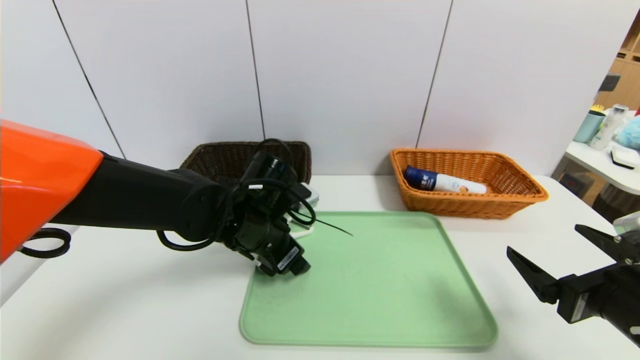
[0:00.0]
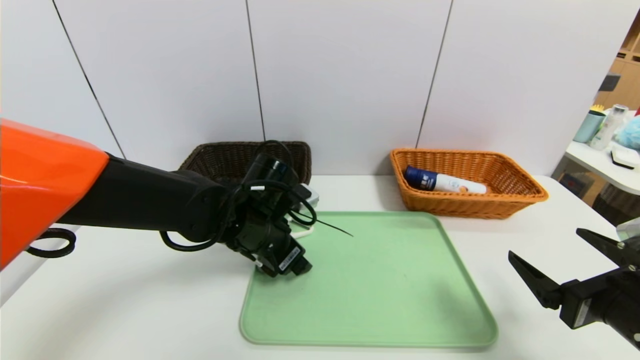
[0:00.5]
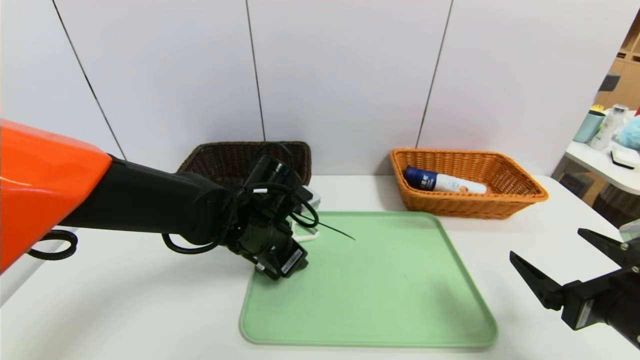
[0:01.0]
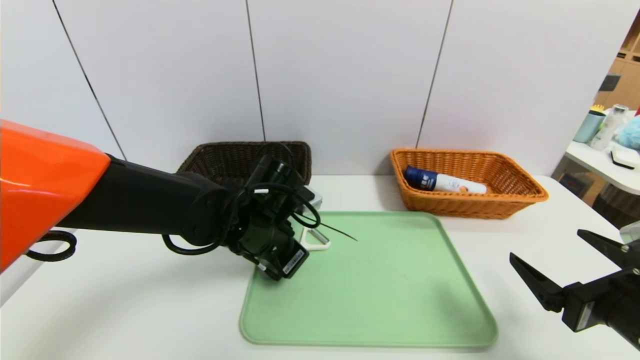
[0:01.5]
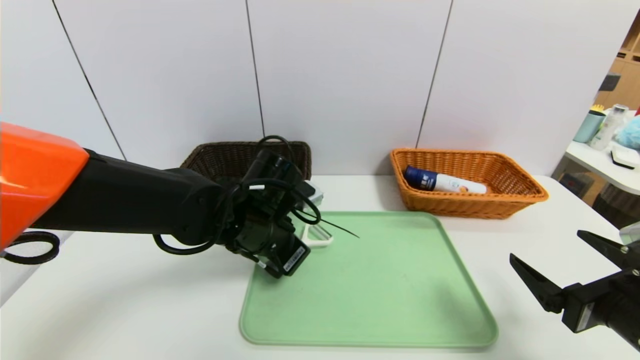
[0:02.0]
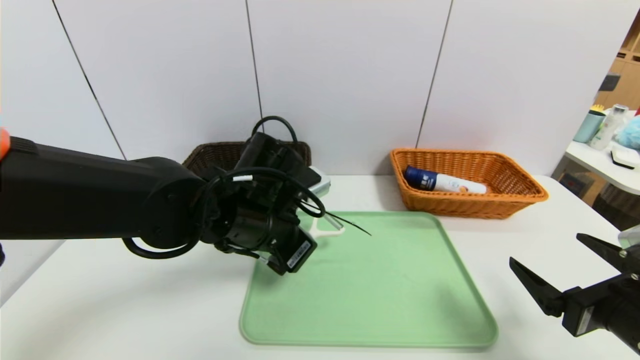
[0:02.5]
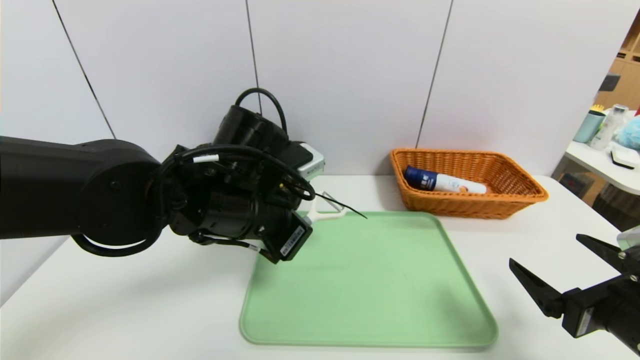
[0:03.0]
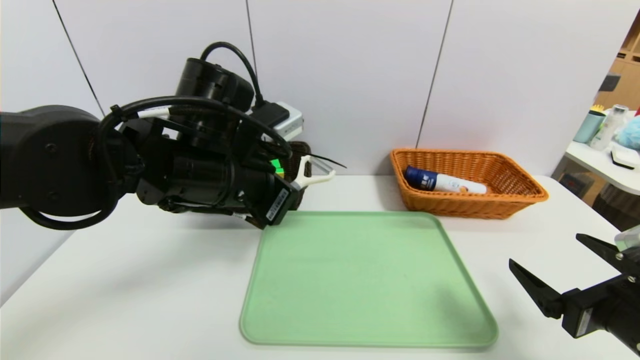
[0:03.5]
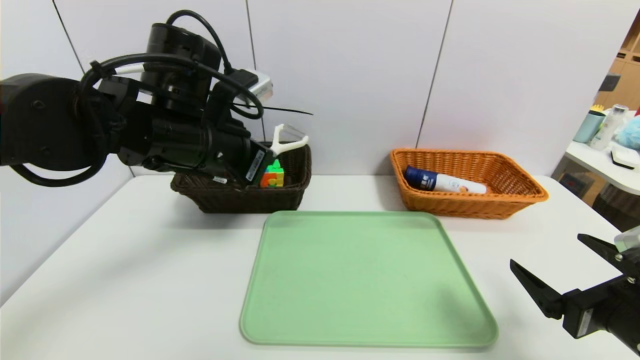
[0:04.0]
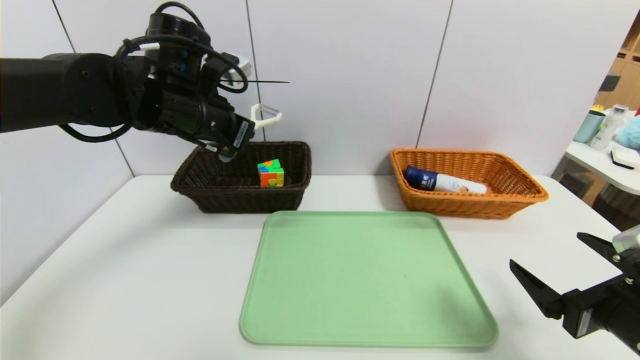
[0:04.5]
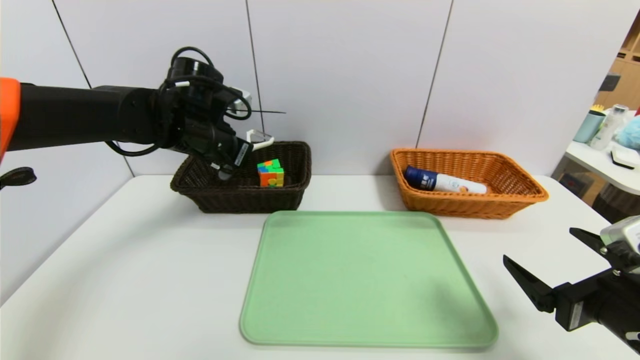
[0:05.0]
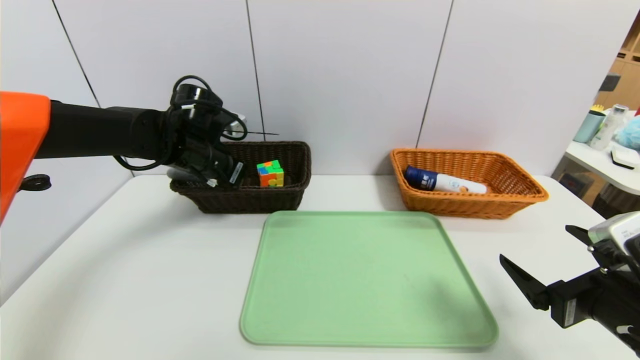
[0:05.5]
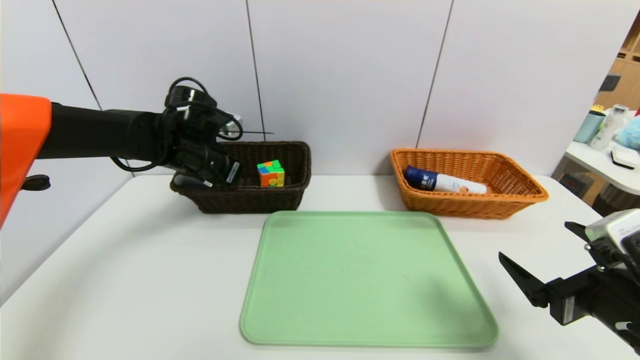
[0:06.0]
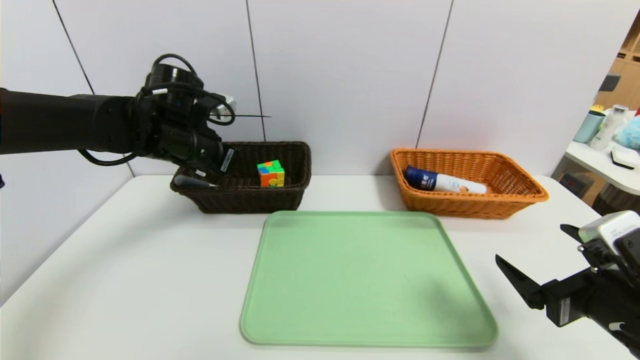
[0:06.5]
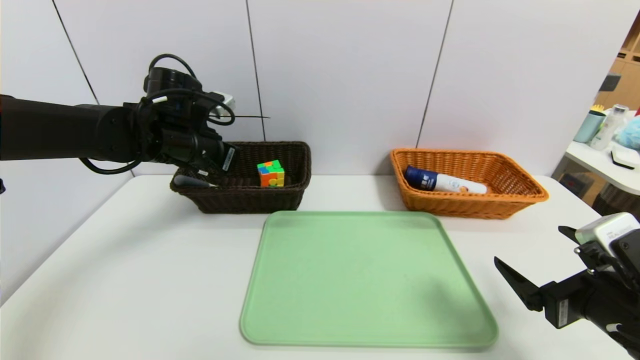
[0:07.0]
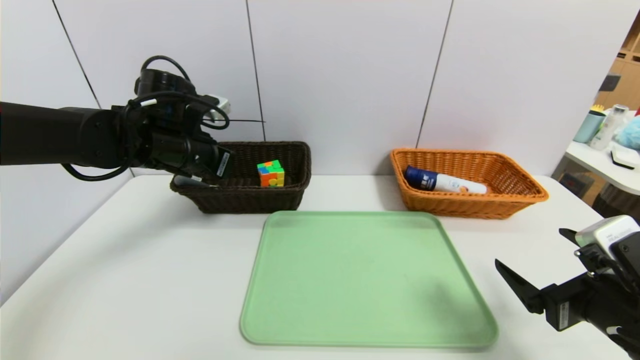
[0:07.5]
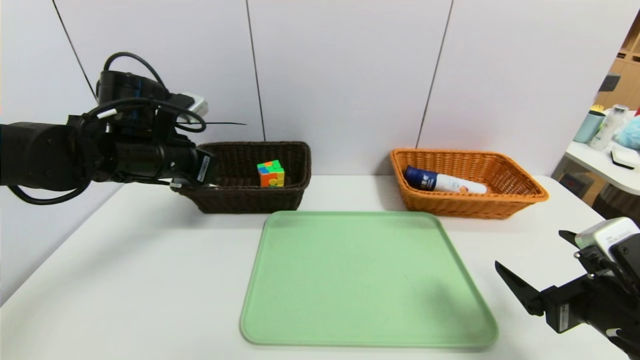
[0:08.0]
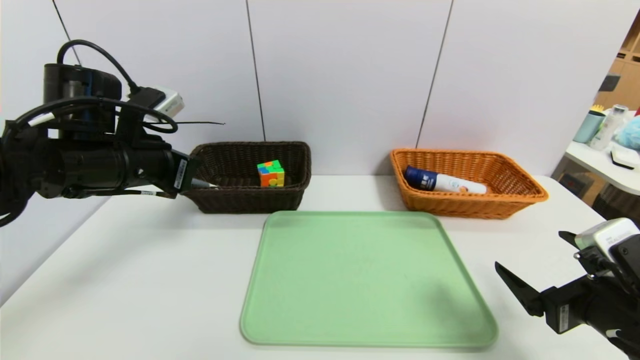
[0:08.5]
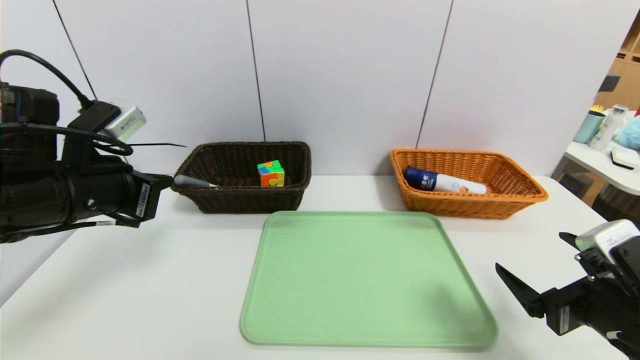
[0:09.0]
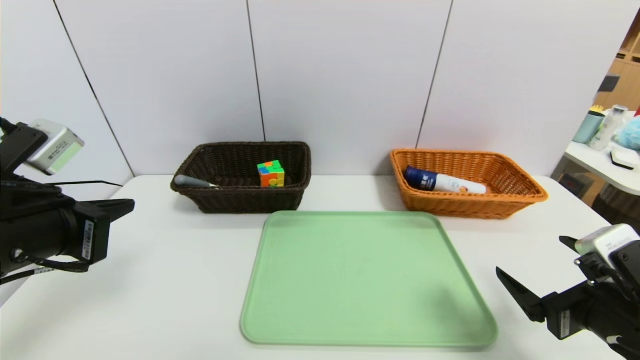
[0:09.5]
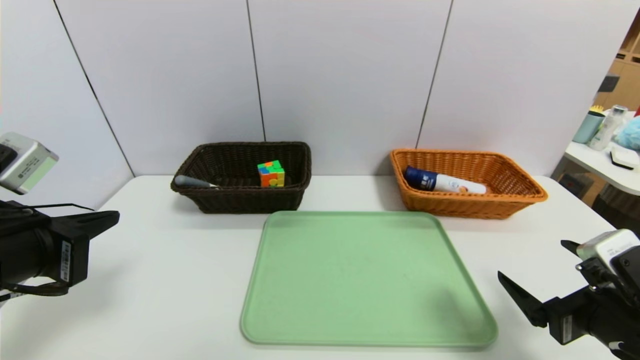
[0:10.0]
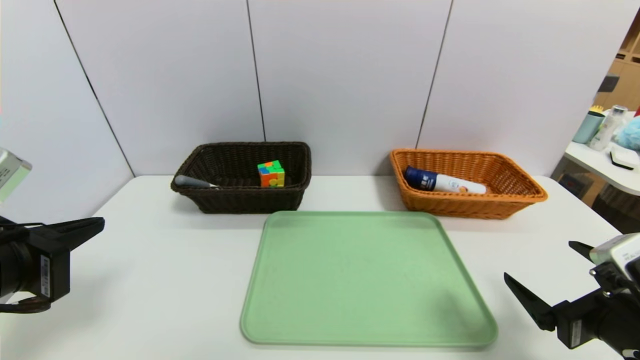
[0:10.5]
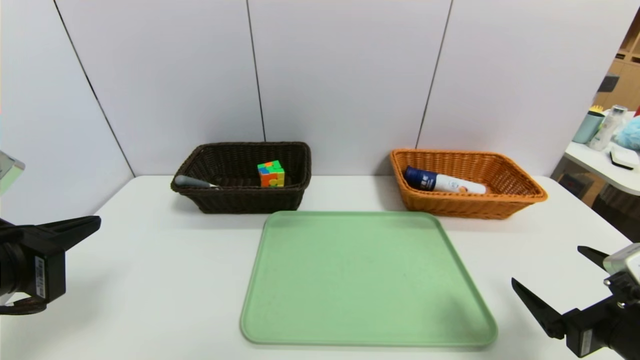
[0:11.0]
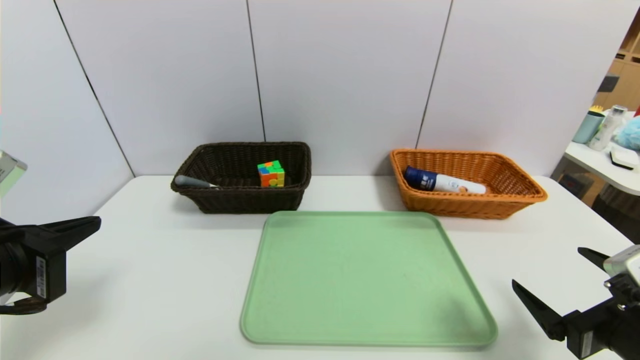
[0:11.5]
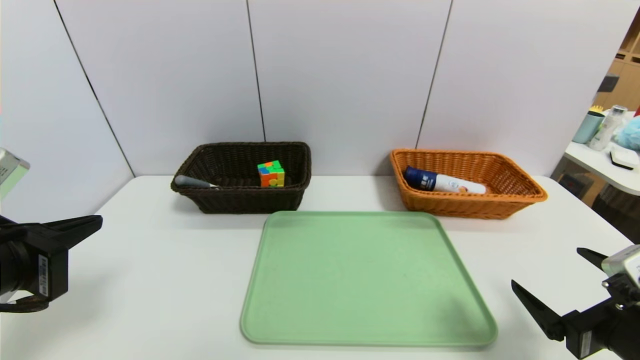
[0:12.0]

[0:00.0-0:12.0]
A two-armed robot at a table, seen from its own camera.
Task of the whole recording: place the food in the right basket with the right gripper, and place the non food items in the left basket with the left gripper.
Step, 0:00.0 to 0:06.0: Grasp the peeler and put it in the left basket.
0:00.0 to 0:02.0: The left gripper closes up.
0:02.0 to 0:04.0: The left gripper moves upward and to the left, roughly 15 cm.
0:04.0 to 0:06.0: The left gripper heads forward, downward and to the left, covering approximately 15 cm.
0:06.0 to 0:08.0: The left gripper heads backward, covering about 5 cm.
0:08.0 to 0:10.0: The left gripper travels backward by about 20 cm.
0:10.0 to 0:12.0: The grippers stay close to where they were, moving slightly.

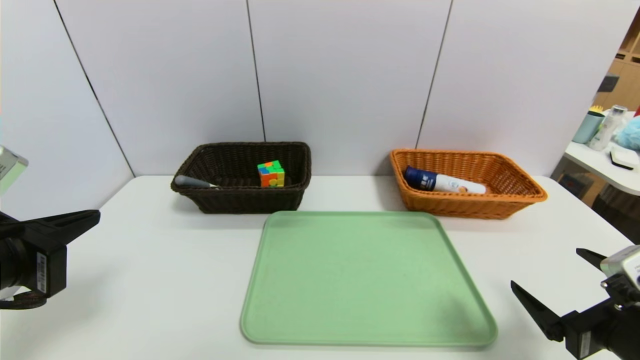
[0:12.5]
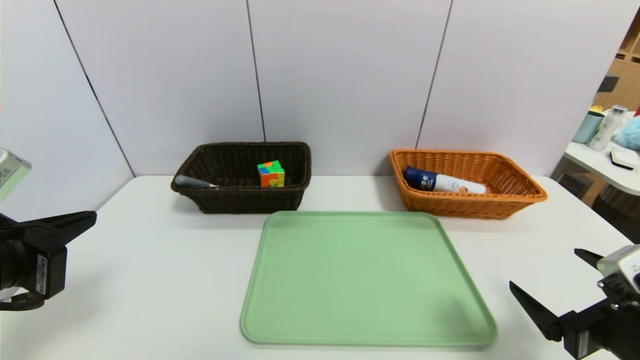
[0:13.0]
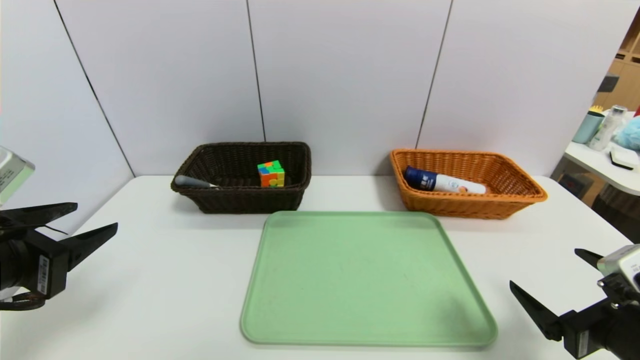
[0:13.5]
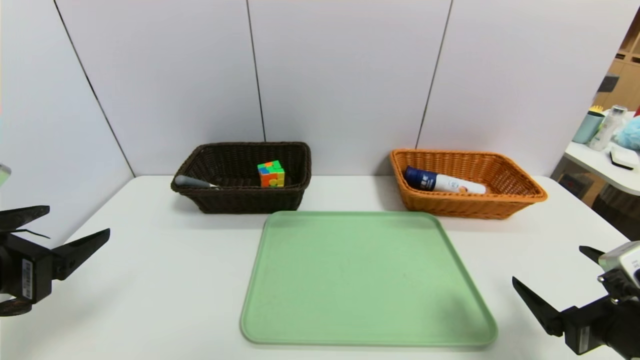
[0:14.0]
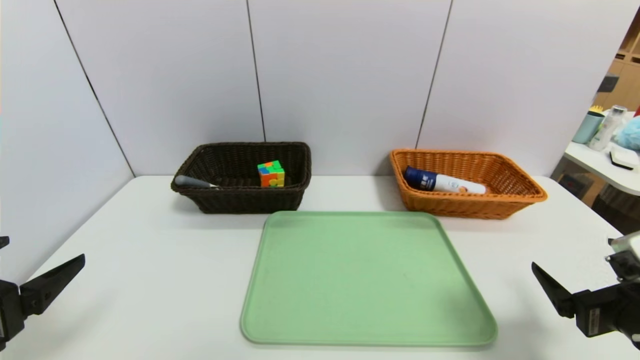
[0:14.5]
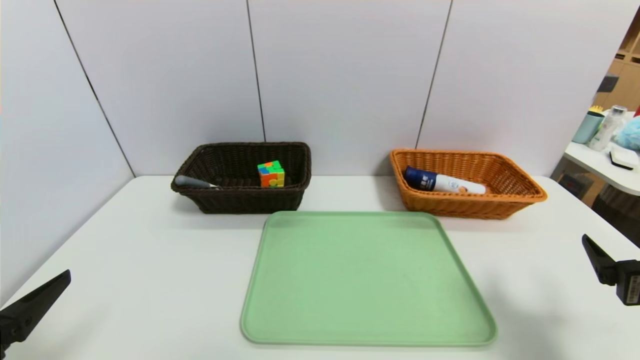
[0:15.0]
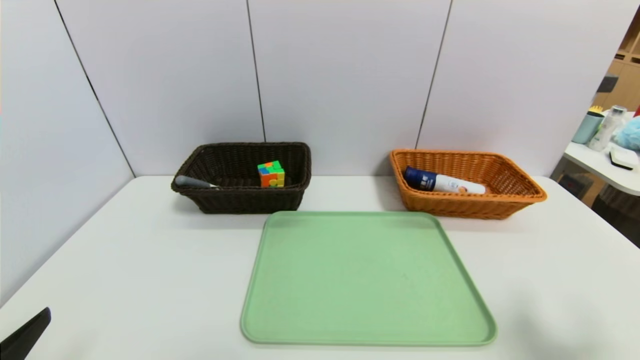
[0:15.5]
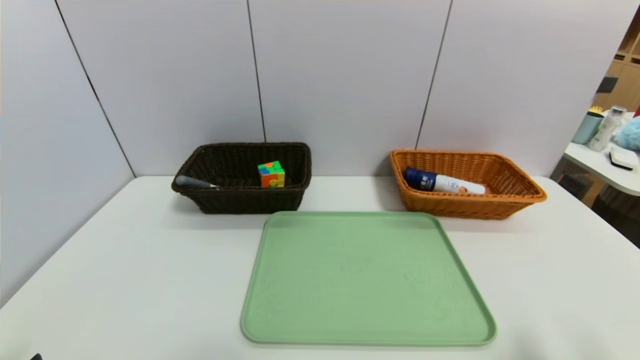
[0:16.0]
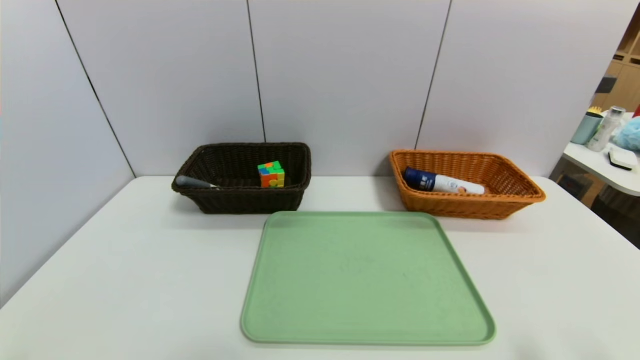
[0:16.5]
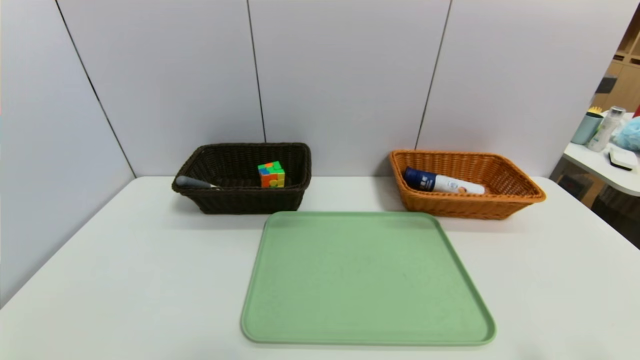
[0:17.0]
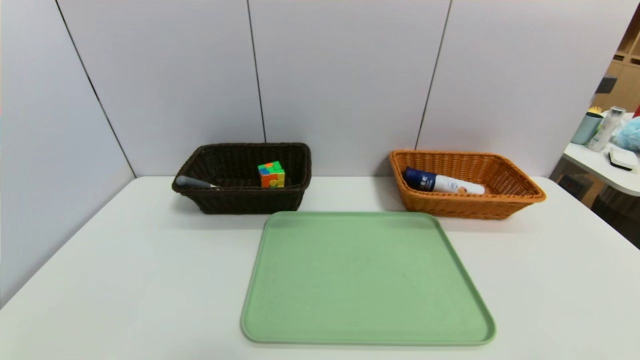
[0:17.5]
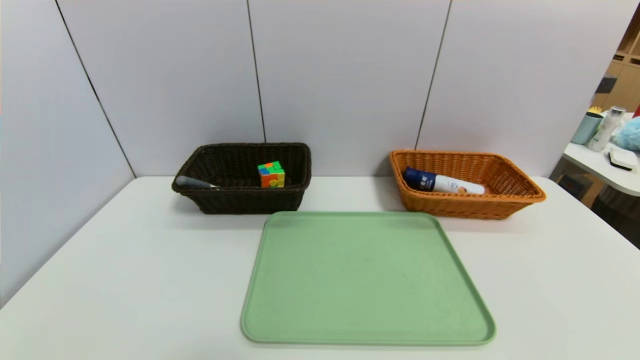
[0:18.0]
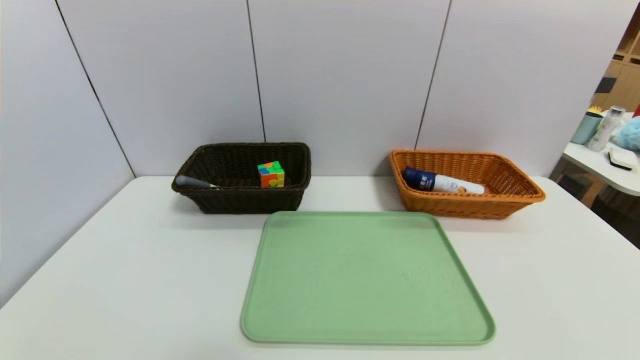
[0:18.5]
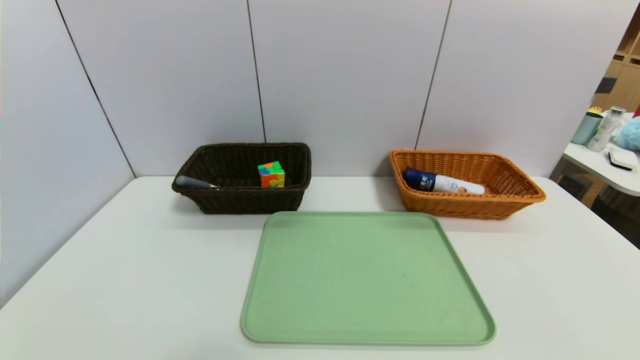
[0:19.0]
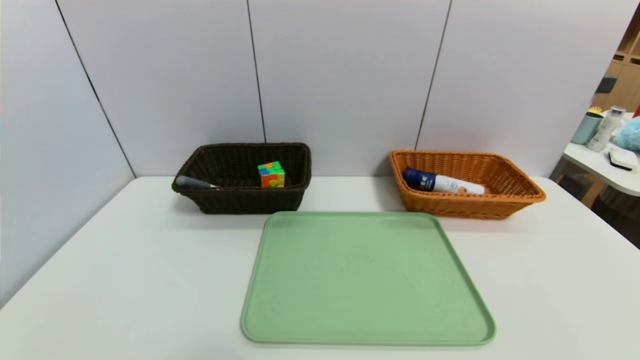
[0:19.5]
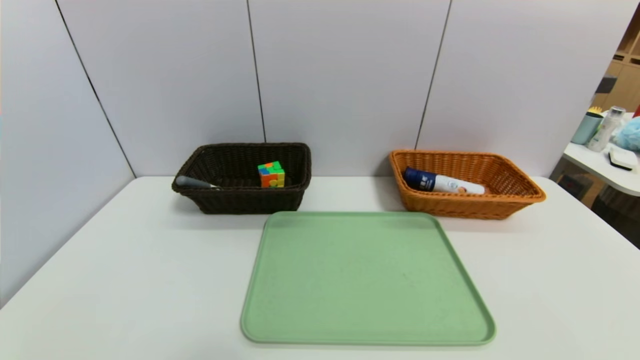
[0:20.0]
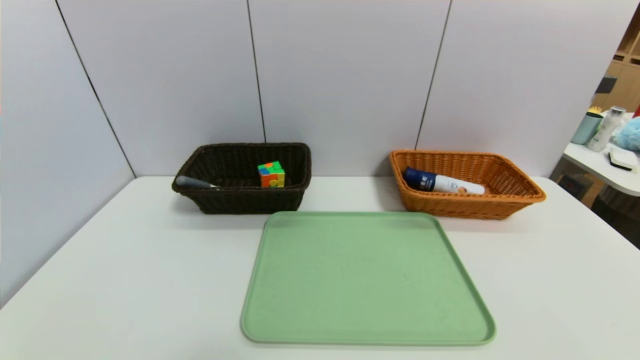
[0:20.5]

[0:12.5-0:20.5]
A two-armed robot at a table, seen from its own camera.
Task of the whole recording: place the food in the right basket with the right gripper, and place the non food items in the left basket with the left gripper.
0:12.5 to 0:14.5: The left gripper shifts by some 5 cm, and opens.
0:14.5 to 0:16.5: The left gripper shifts roughly 10 cm backward and downward. Meanwhile the right gripper goes about 10 cm backward.
